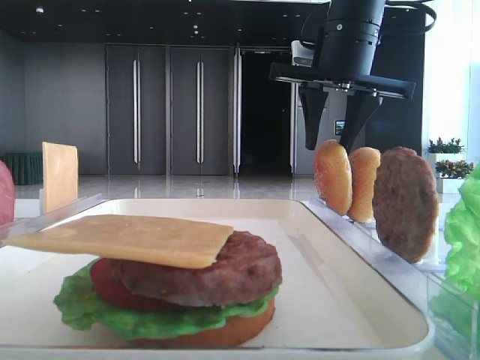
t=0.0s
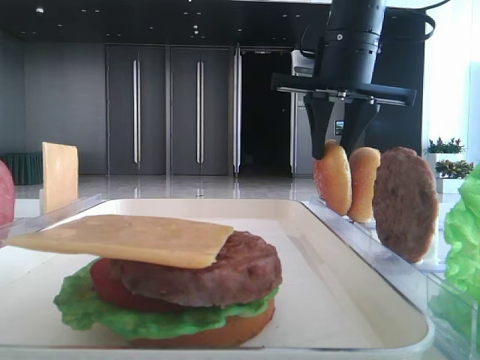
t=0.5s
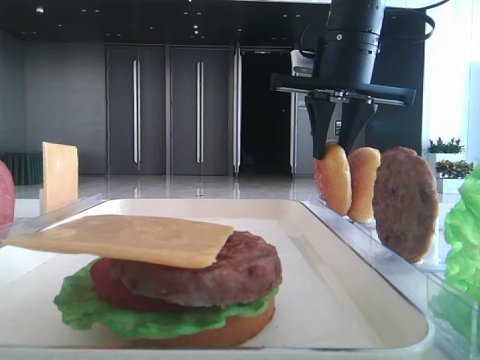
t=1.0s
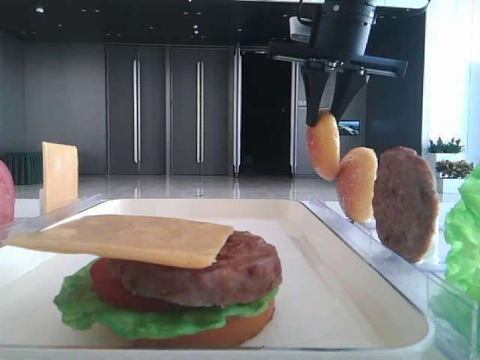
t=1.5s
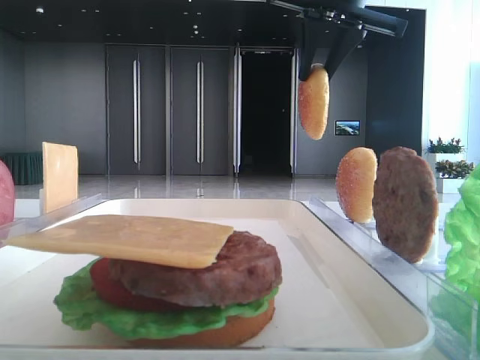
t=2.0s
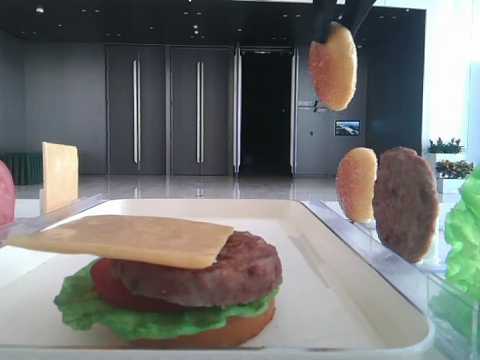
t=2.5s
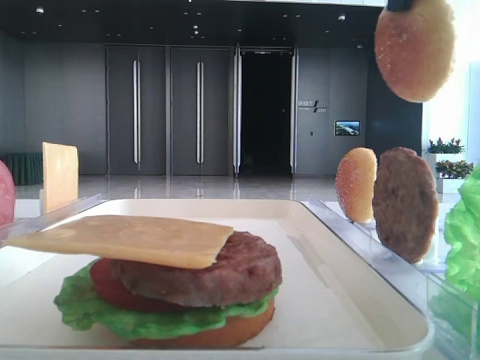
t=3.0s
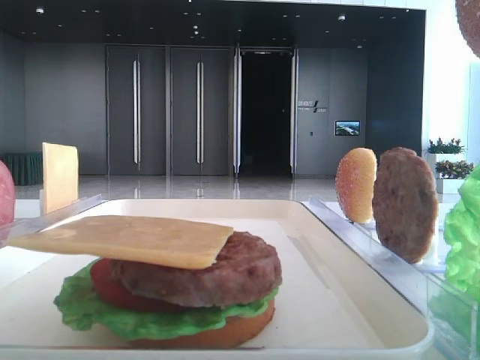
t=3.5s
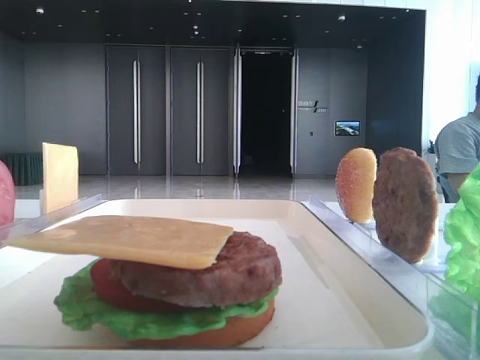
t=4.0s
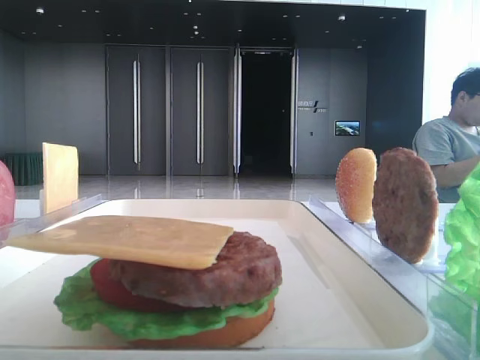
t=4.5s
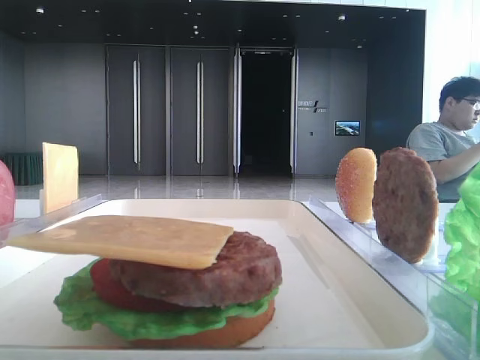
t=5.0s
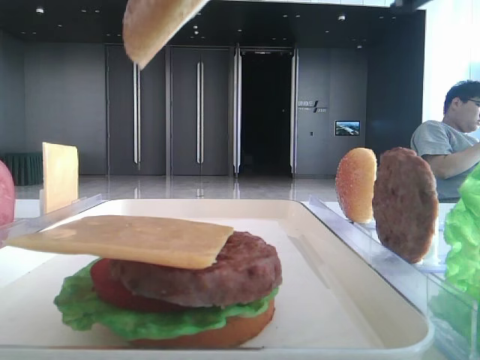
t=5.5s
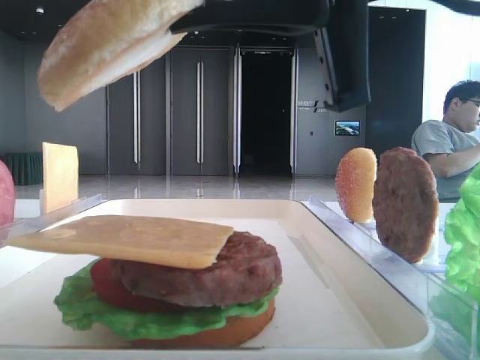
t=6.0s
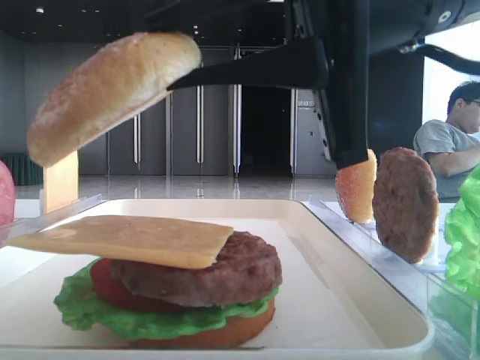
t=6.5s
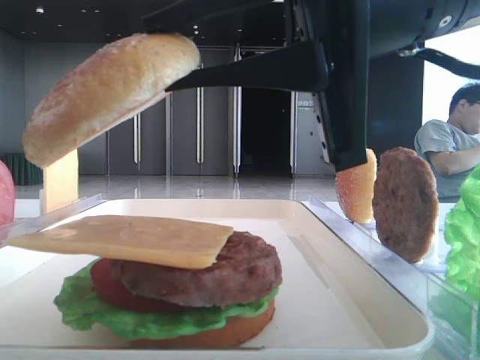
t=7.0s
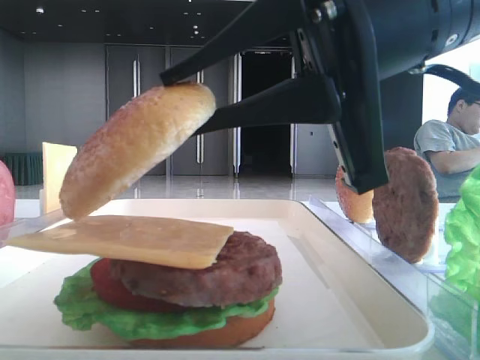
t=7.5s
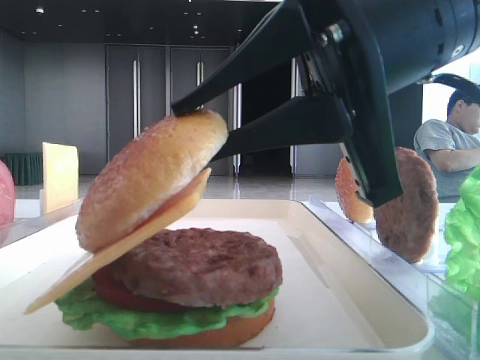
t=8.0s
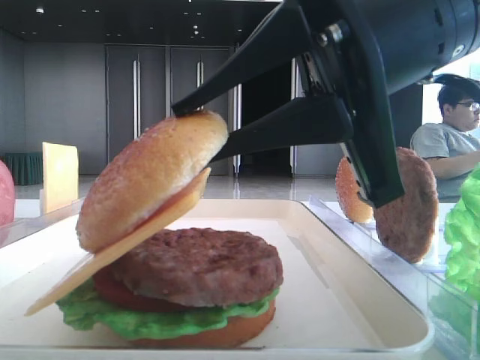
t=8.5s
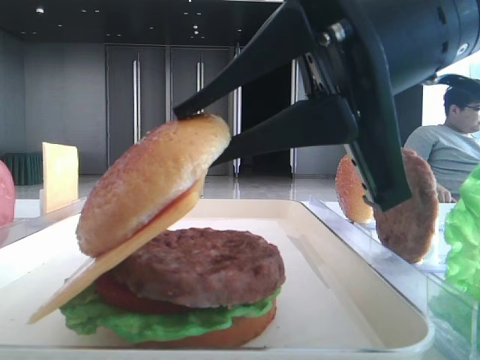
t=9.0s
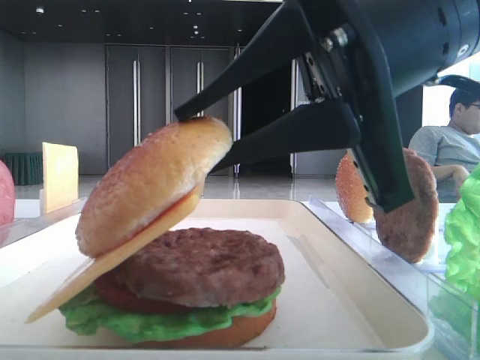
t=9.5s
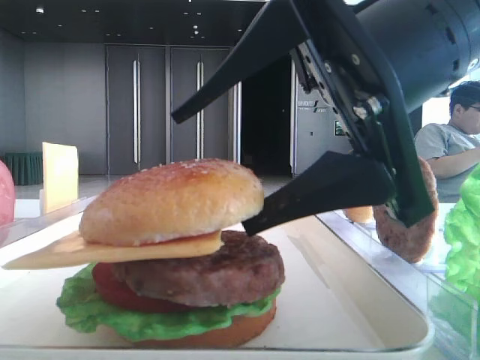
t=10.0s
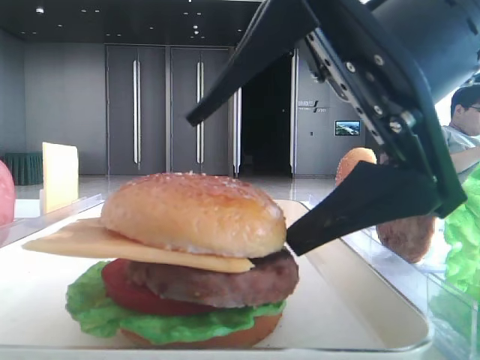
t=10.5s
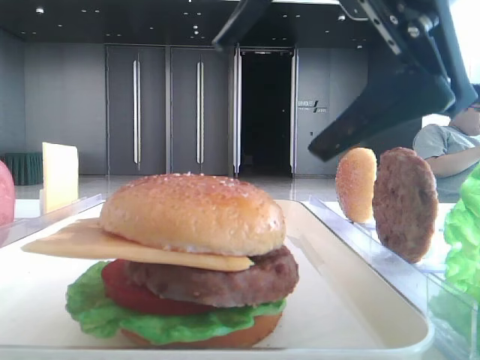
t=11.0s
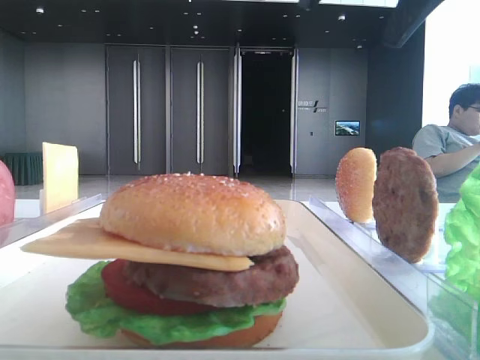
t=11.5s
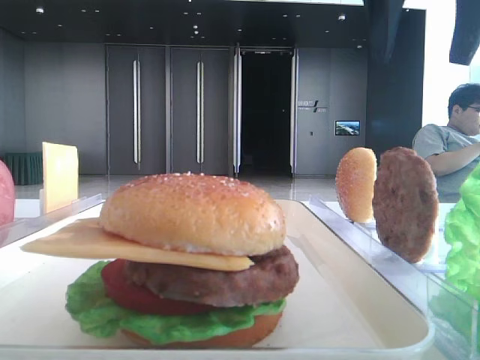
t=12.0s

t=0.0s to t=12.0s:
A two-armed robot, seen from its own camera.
Step, t=1.5s to t=10.0s: Place the top bread slice on the cheese with the right hand.
t=0.0s to t=2.0s: The right gripper travels upward by about 10 cm.
t=2.0s to t=4.0s: The right gripper is displaced backward by roughly 30 cm.
t=4.0s to t=6.0s: The right gripper shifts approximately 20 cm downward, to the left and forward.
t=6.0s to t=8.0s: The right gripper heads downward, covering some 5 cm.
t=8.0s to t=10.0s: The right gripper opens.
t=10.0s to t=12.0s: The right gripper shifts about 20 cm upward, forward and to the right.

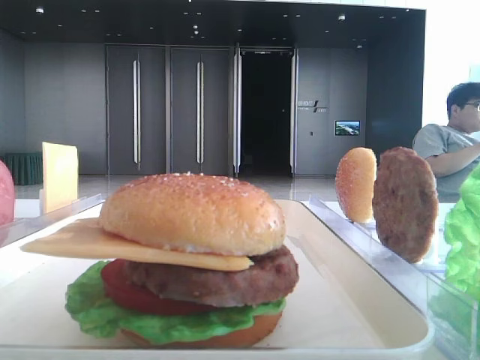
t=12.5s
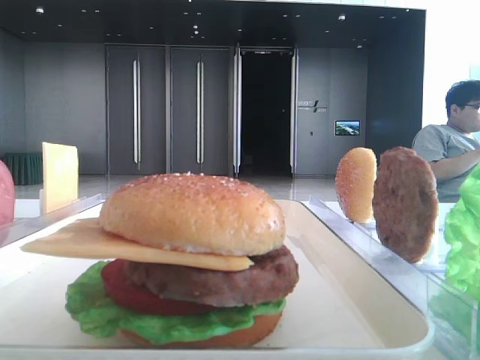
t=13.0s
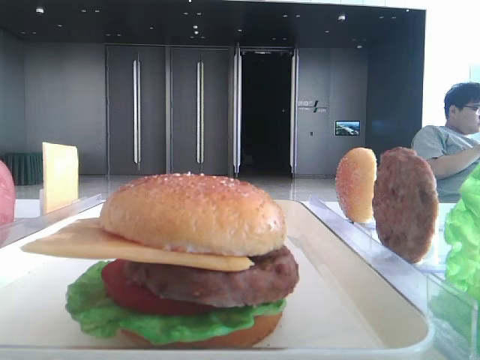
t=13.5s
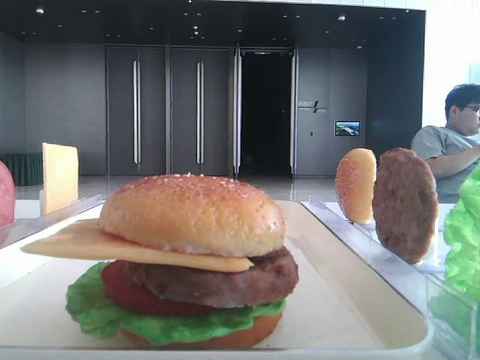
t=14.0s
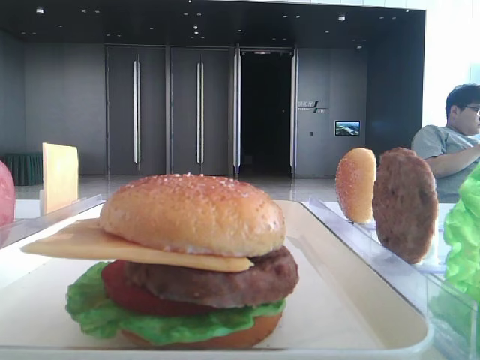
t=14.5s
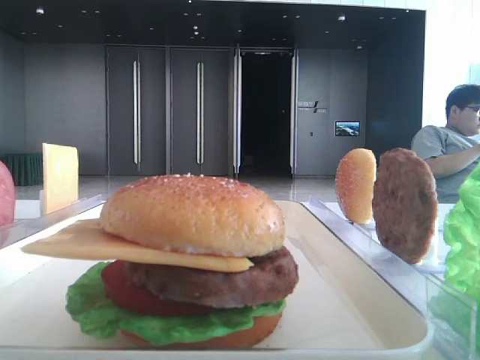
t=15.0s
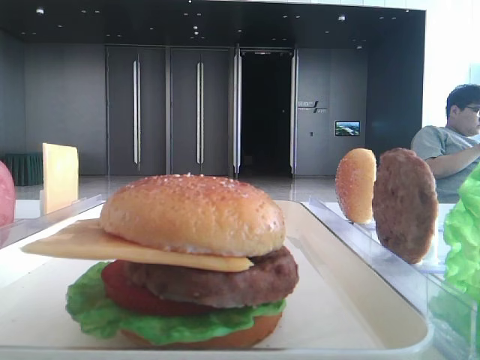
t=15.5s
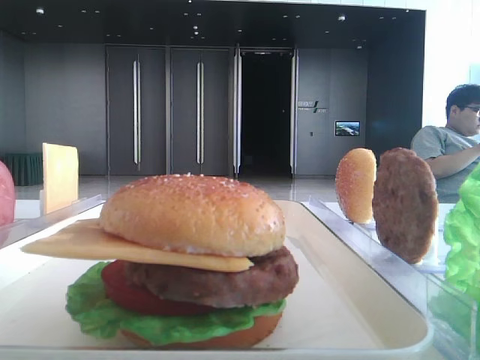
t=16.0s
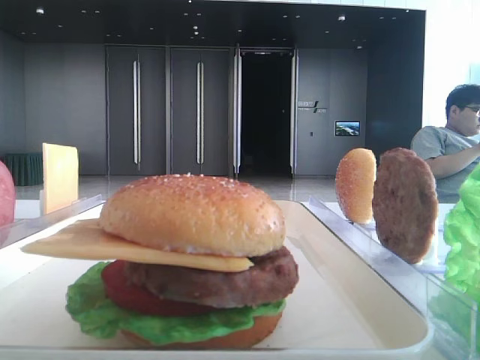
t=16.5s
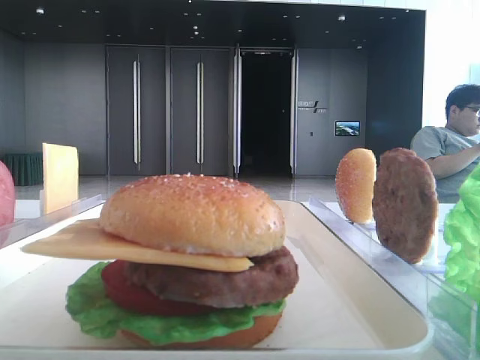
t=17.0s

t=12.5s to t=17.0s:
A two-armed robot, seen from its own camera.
t=12.5s to t=14.5s: The right gripper heads backward, covering approximately 30 cm.
